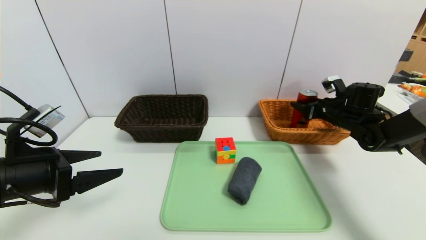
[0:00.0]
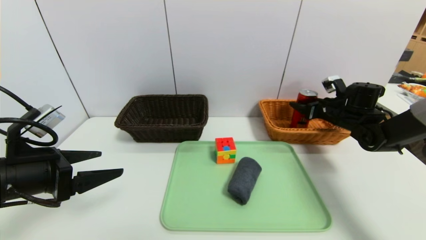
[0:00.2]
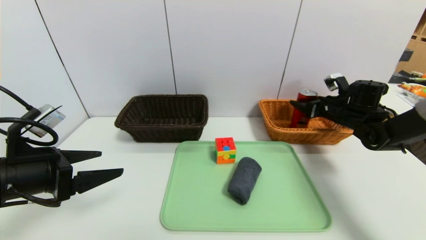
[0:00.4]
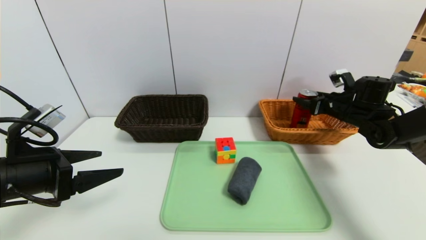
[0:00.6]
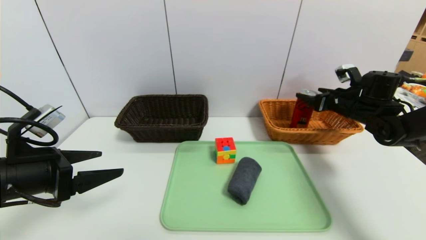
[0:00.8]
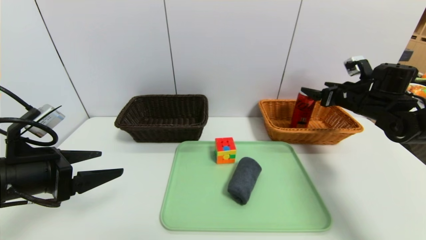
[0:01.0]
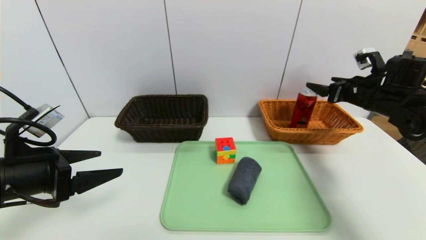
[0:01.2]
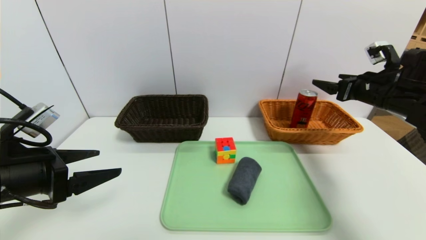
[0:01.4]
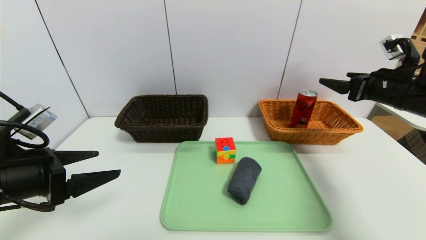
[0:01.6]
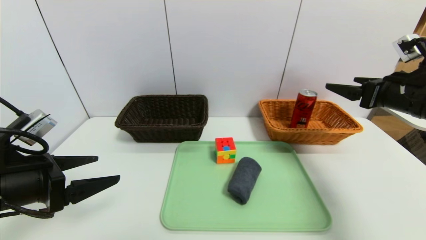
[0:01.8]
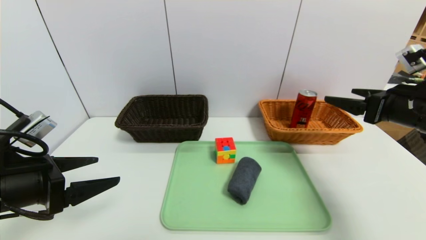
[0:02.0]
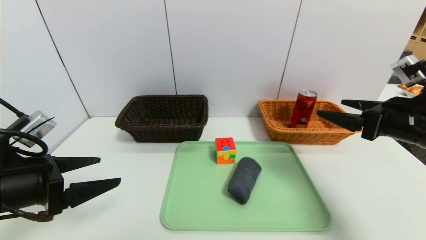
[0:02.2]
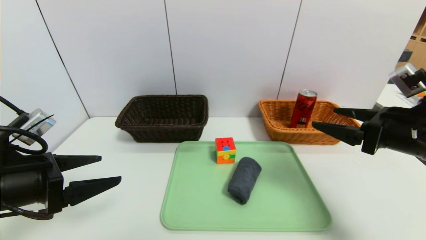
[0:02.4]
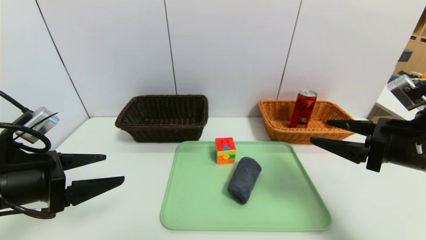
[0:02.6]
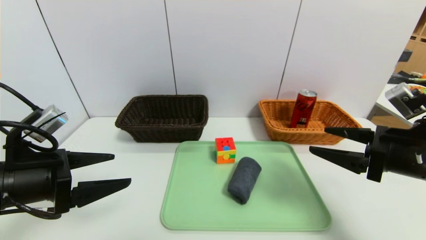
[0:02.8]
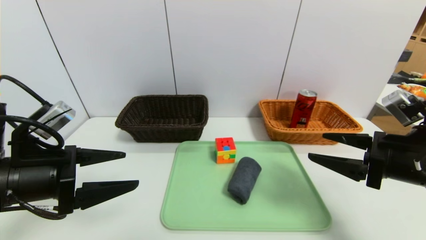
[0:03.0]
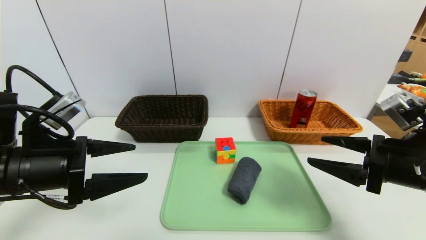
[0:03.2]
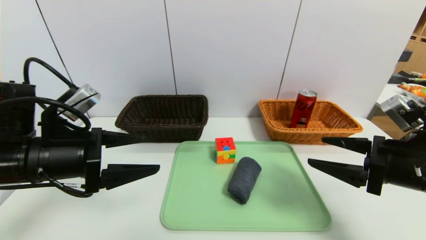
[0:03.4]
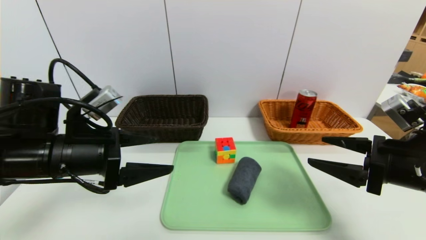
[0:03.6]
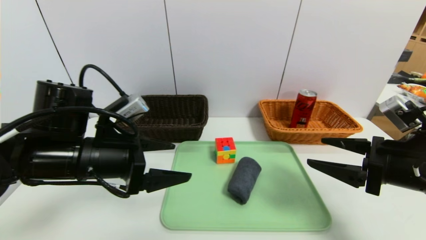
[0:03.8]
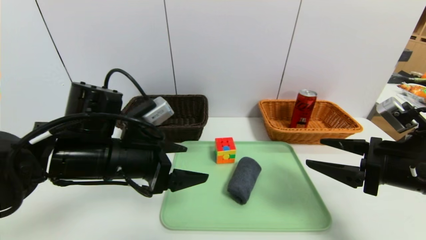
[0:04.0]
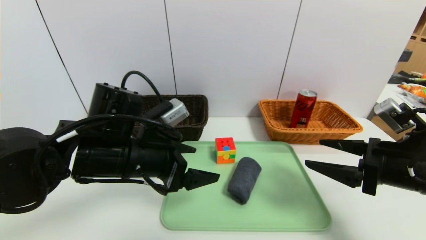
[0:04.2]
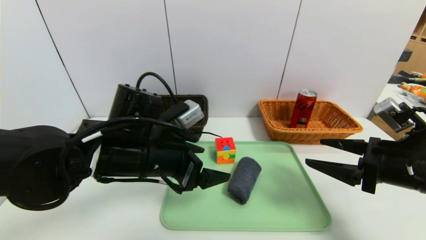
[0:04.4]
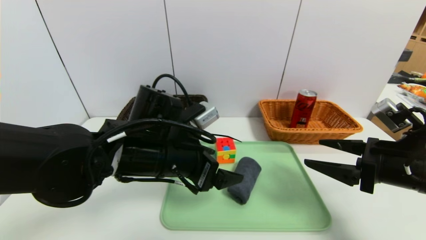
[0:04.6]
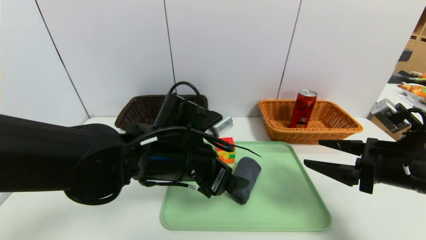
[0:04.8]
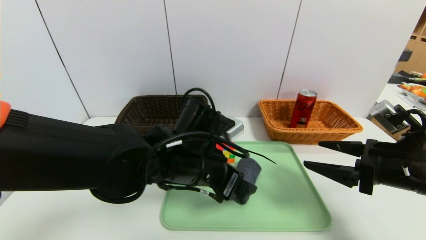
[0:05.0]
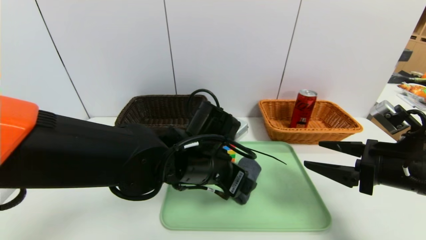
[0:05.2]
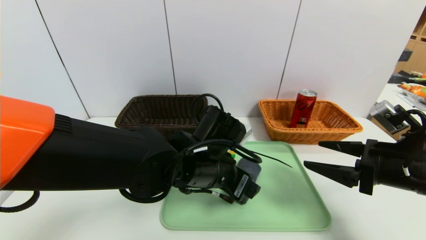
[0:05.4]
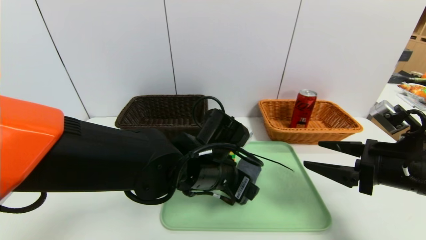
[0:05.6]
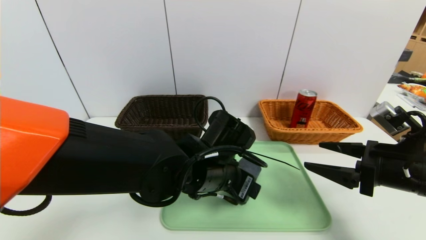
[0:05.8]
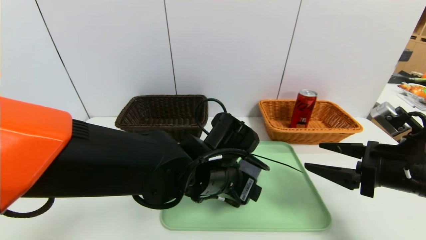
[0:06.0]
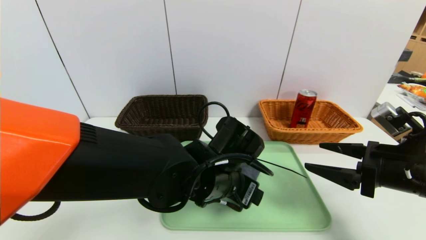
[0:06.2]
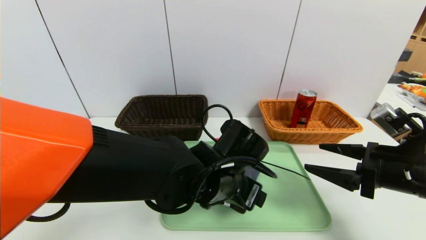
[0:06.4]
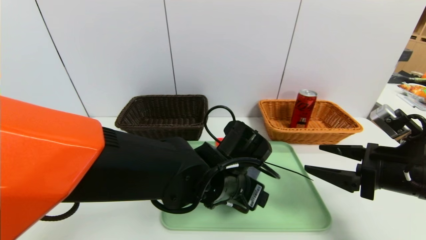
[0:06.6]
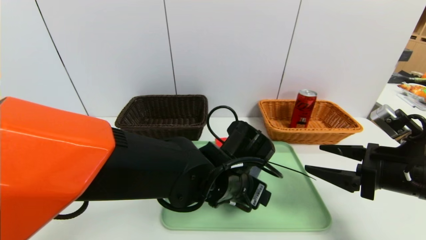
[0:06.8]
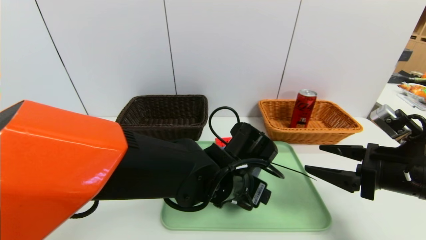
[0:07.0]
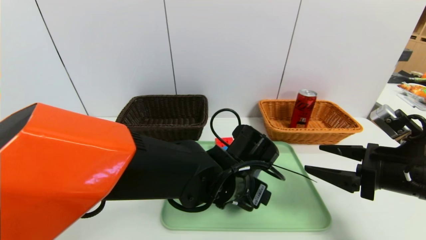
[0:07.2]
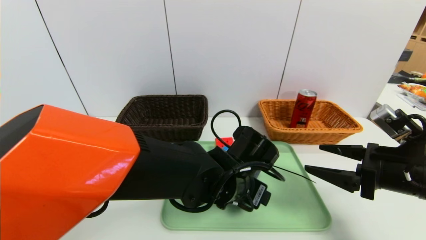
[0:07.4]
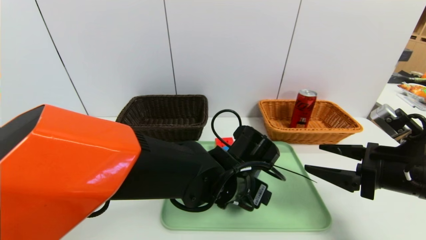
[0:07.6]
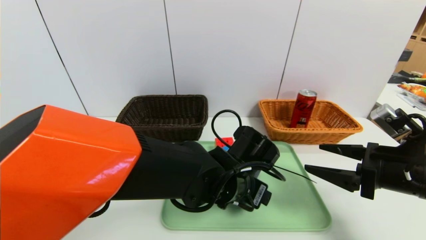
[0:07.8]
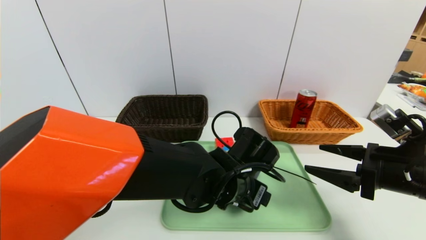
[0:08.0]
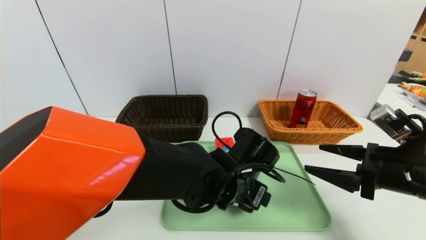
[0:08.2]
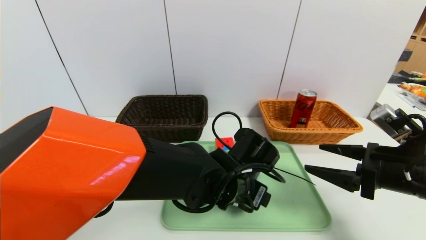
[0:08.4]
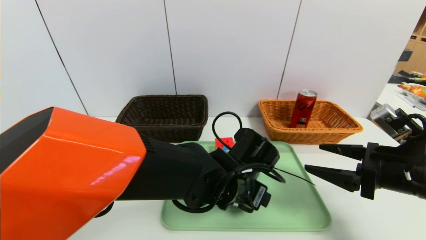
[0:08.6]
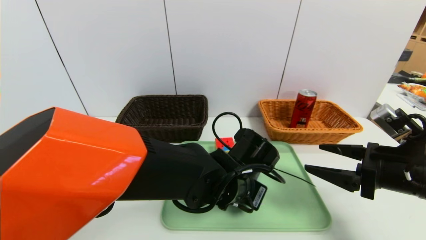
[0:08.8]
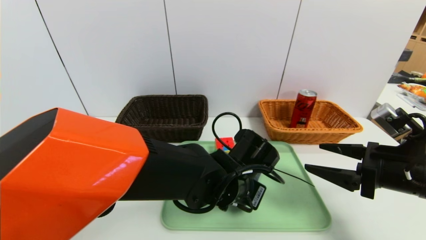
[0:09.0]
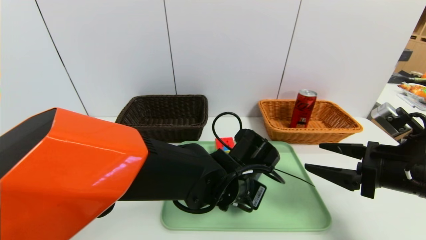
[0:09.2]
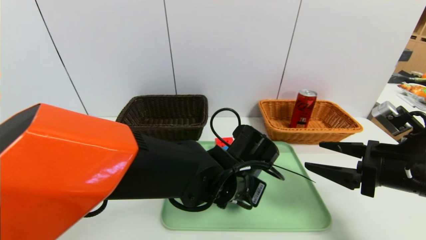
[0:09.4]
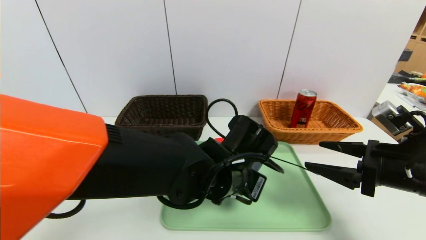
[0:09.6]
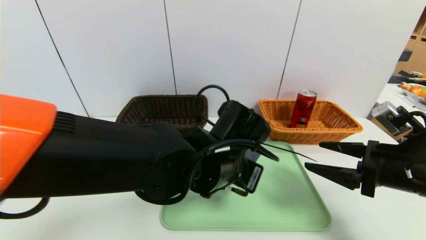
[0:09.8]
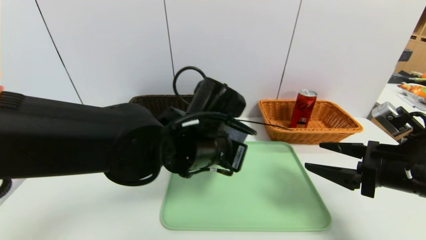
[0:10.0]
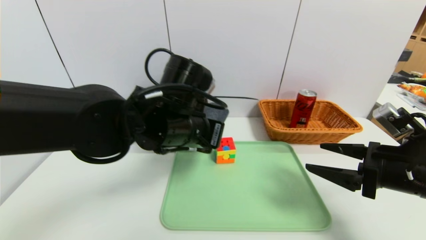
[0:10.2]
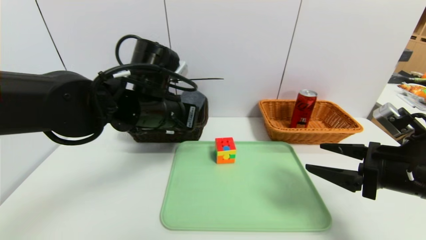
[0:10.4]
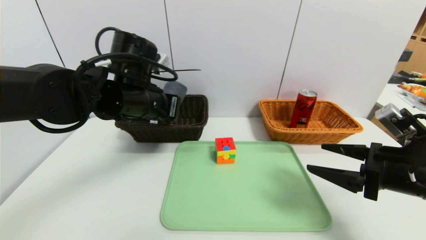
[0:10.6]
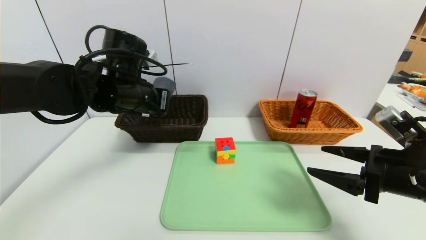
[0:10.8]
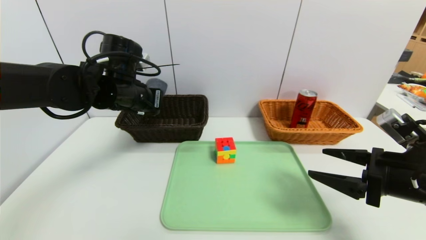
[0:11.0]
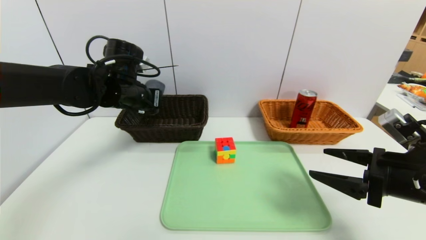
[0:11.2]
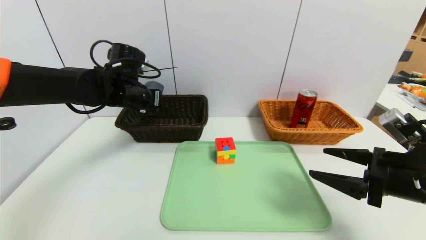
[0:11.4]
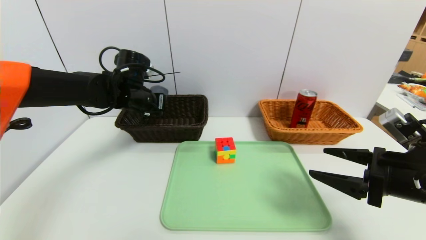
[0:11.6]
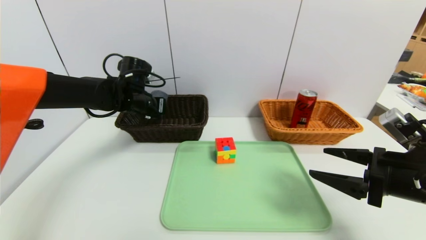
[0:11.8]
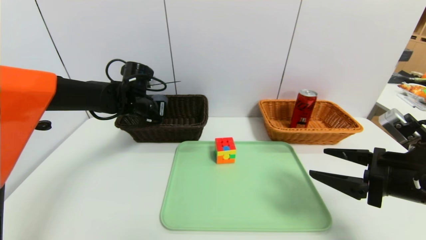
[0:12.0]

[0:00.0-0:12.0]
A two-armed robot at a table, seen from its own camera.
Task of the whole recording: place the food in the right basket with the right gripper, and place the non food items in the left basket with the left gripper.
0:00.0 to 0:01.6: The right gripper travels backward and upward by some 15 cm, and opens.
0:01.6 to 0:03.0: The right gripper is displaced backward, to the left and downward by approximately 15 cm.
0:03.0 to 0:04.4: The left gripper goes approximately 15 cm to the right.
0:04.4 to 0:06.0: The left gripper heads to the right, covering some 10 cm.
0:06.0 to 0:07.6: There are only small adjustments of the grippers.
0:07.6 to 0:09.0: The left gripper closes.
0:09.0 to 0:10.4: The left gripper is displaced to the left and upward by roughly 20 cm, and closes up.
0:10.4 to 0:12.0: The left gripper goes roughly 20 cm forward, to the left and downward.

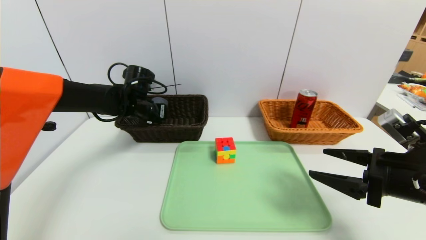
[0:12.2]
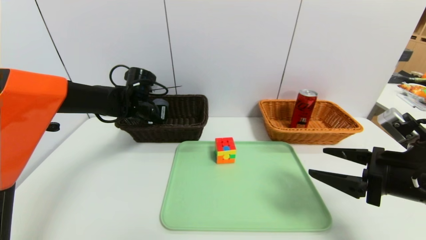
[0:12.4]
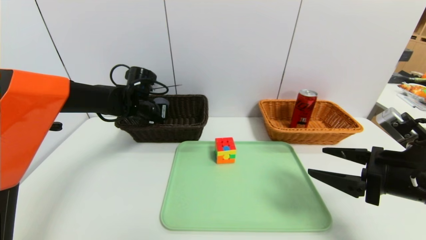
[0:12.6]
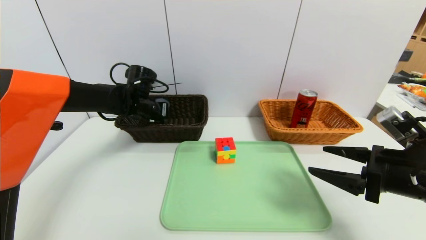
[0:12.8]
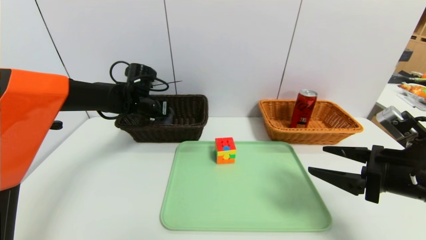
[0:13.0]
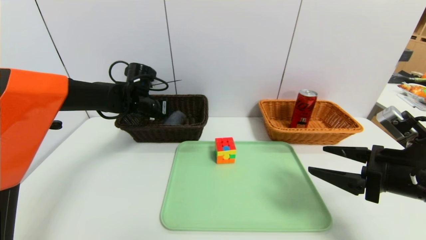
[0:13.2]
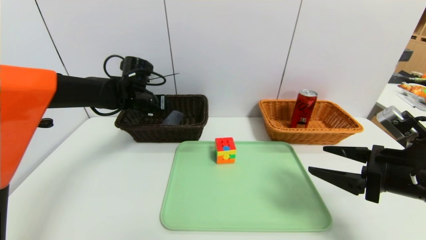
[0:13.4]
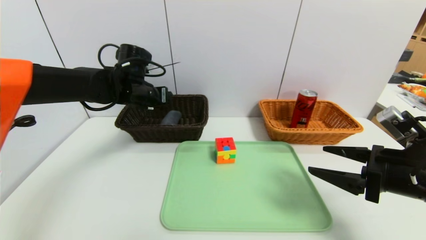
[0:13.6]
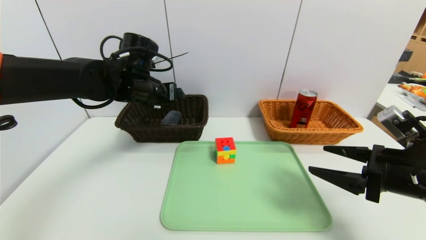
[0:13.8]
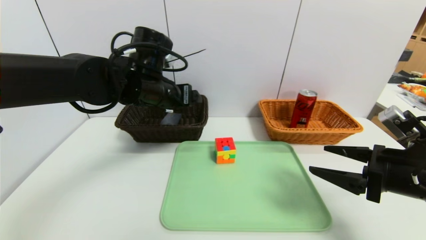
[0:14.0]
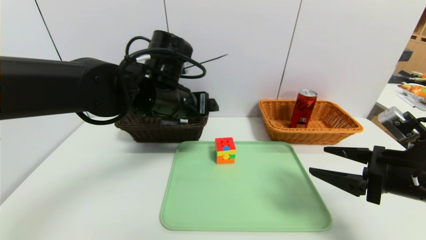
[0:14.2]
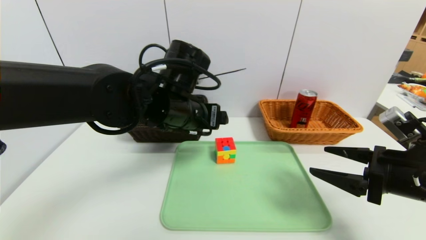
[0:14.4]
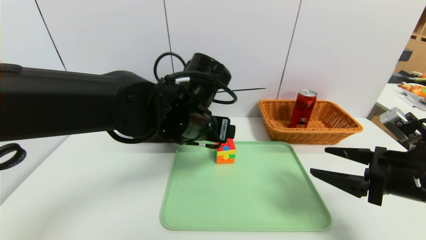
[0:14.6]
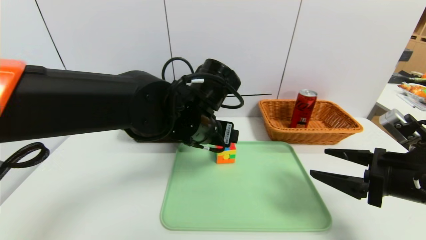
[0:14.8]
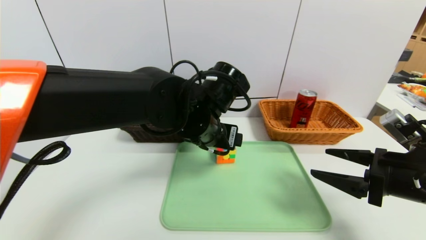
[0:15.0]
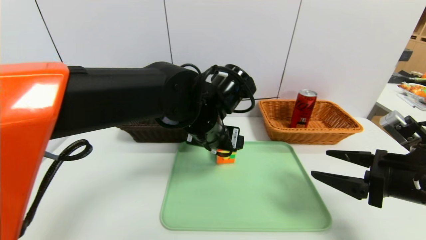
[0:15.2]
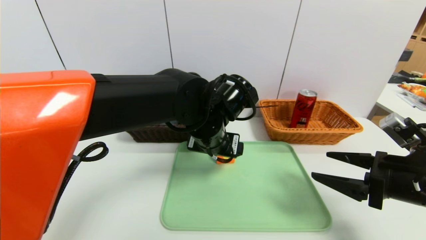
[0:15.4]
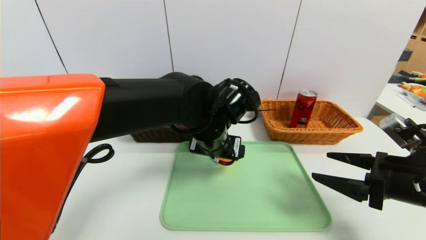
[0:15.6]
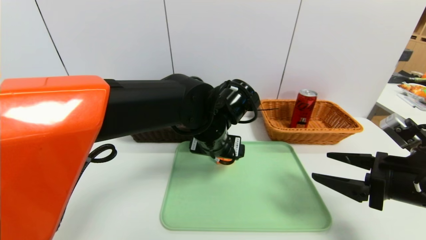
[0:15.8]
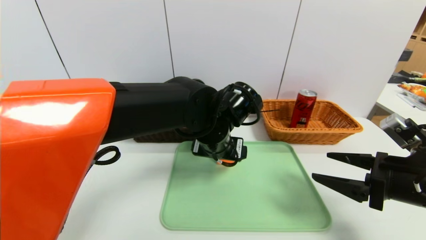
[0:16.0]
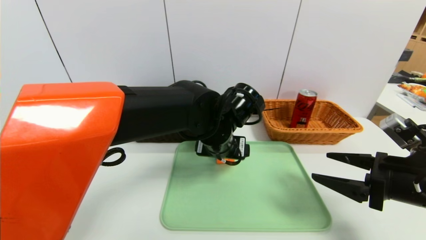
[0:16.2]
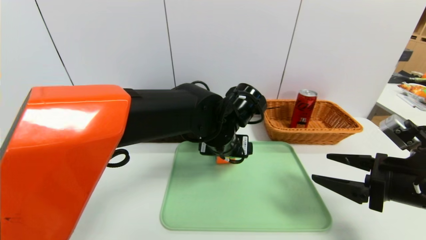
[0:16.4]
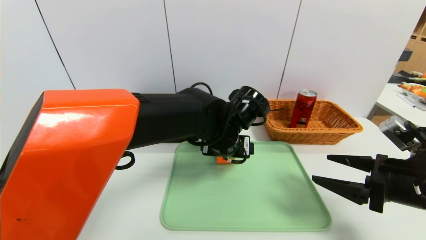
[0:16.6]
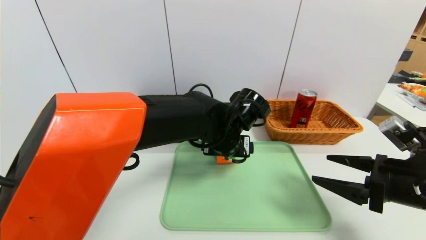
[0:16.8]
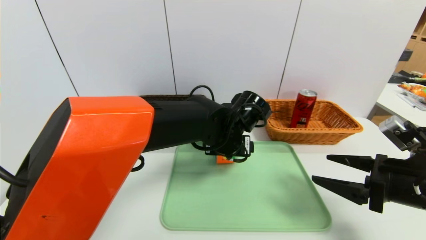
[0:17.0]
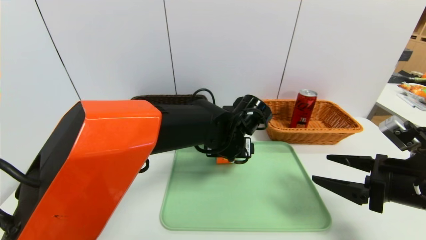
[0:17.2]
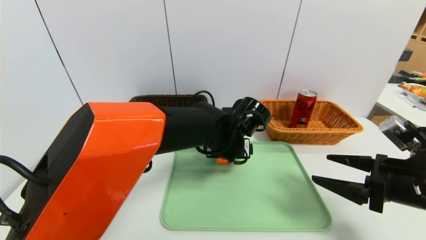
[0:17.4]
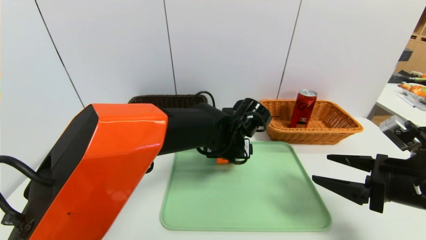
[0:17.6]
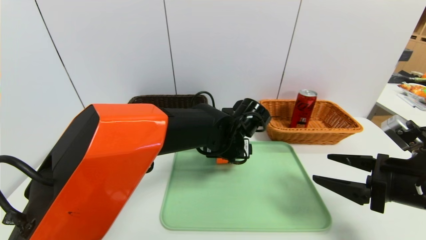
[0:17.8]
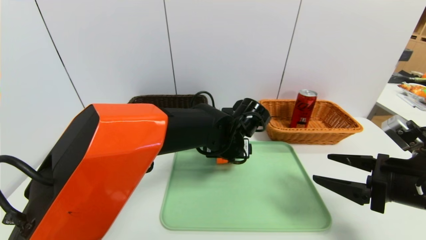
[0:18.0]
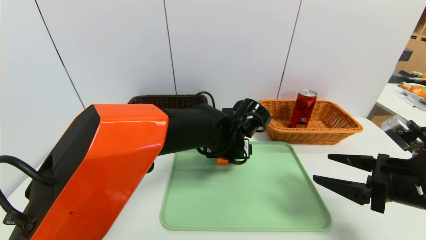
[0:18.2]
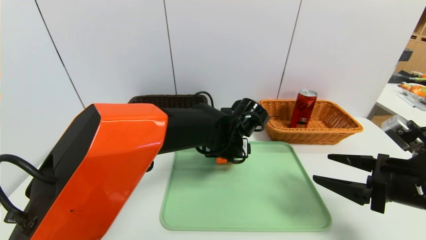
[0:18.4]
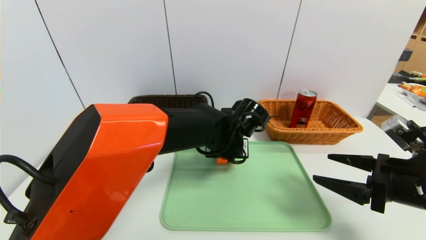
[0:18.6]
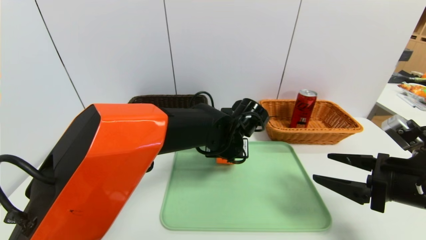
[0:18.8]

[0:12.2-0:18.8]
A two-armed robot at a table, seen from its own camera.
Task of the whole recording: place the food in the right basket with the right gripper, and place the non food items in the left basket with the left gripper.
0:12.2 to 0:13.8: The left gripper travels upward and backward by about 10 cm, and opens its fingers.
0:13.8 to 0:15.4: The left gripper moves to the right and backward, some 15 cm.
0:15.4 to 0:17.2: The left gripper shifts by some 5 cm.
0:17.2 to 0:18.8: The left gripper closes its fingers.
